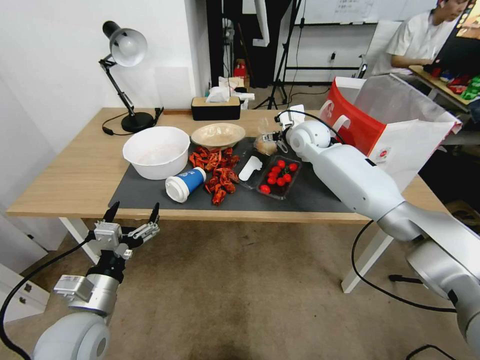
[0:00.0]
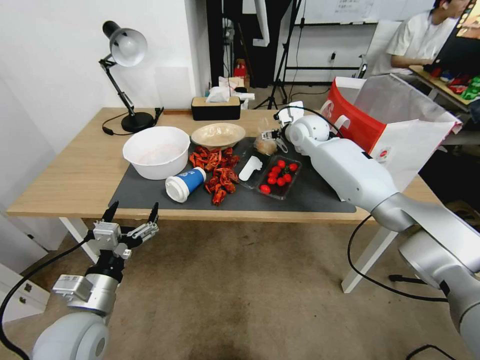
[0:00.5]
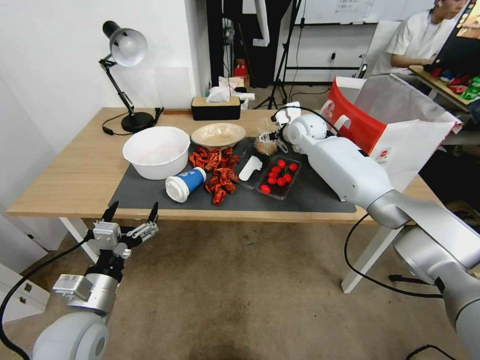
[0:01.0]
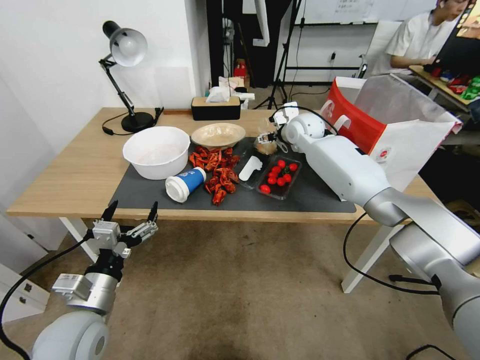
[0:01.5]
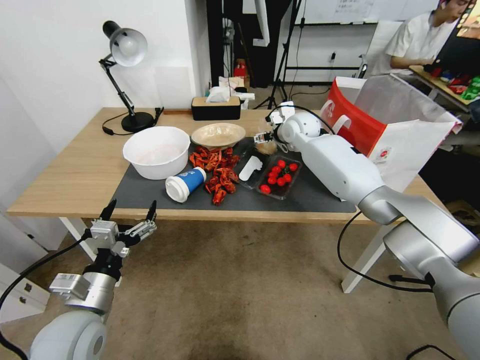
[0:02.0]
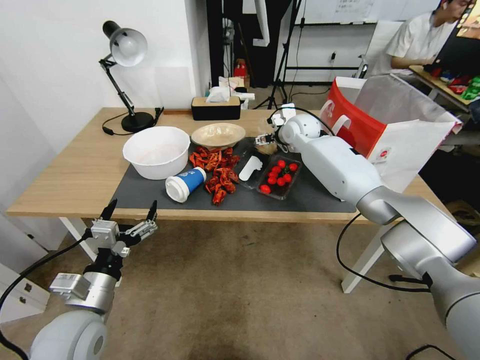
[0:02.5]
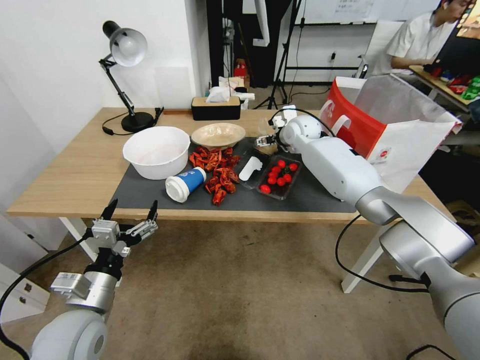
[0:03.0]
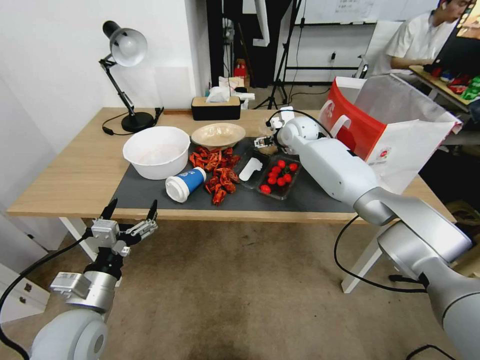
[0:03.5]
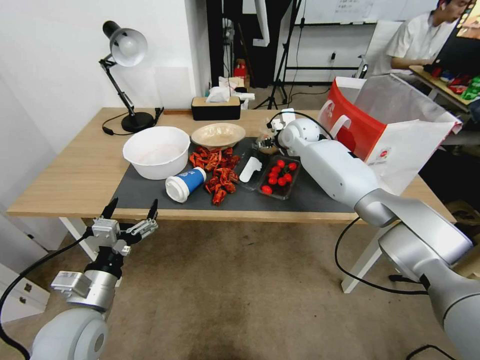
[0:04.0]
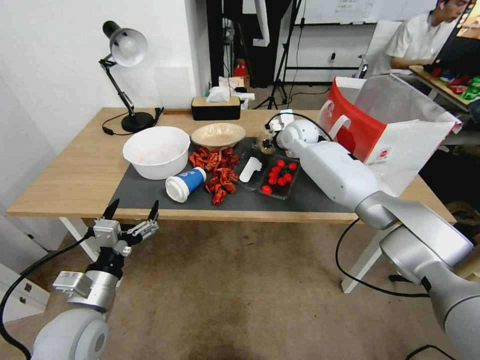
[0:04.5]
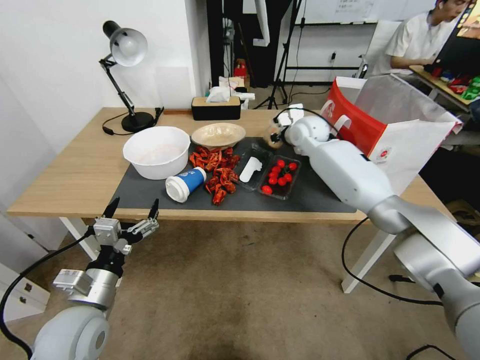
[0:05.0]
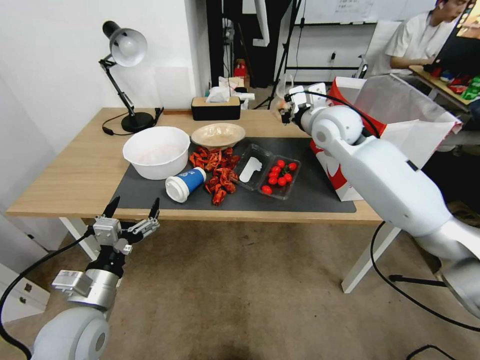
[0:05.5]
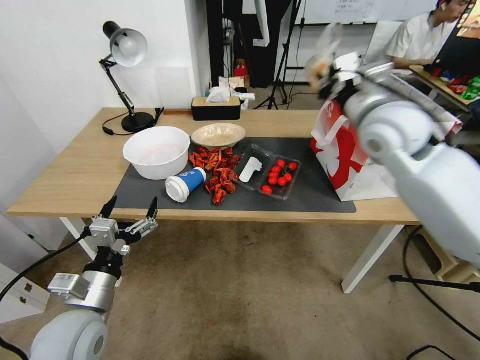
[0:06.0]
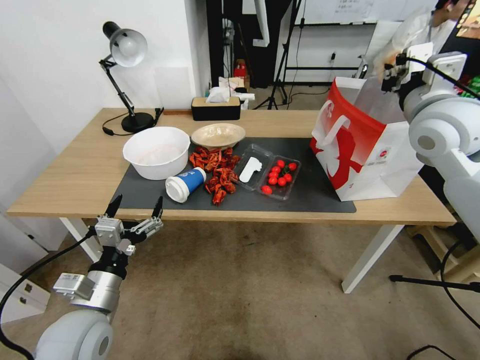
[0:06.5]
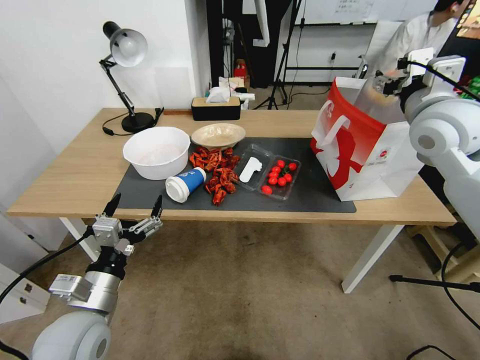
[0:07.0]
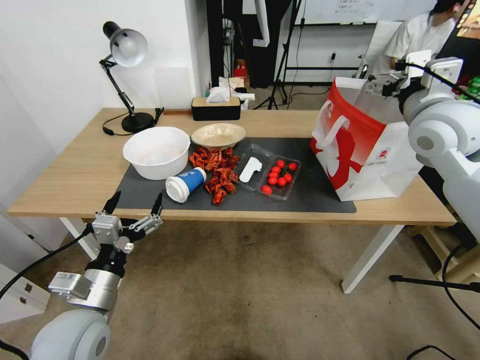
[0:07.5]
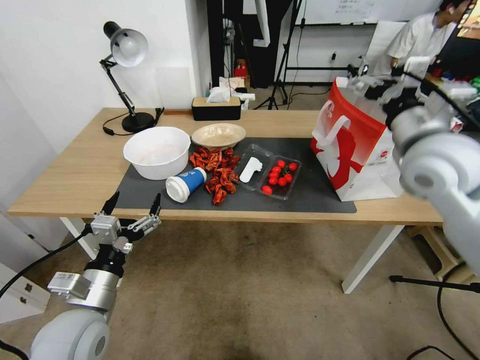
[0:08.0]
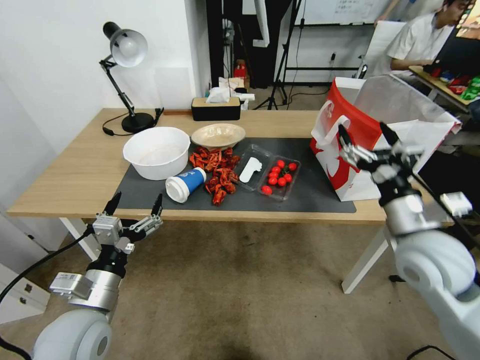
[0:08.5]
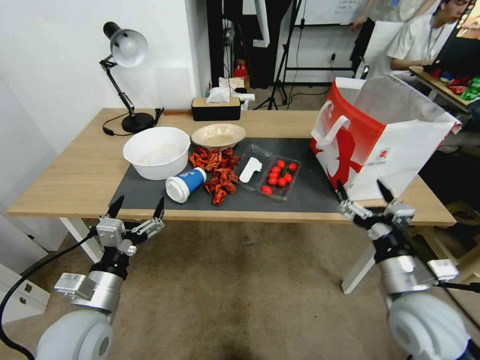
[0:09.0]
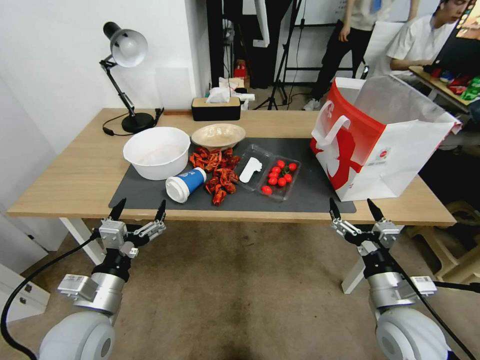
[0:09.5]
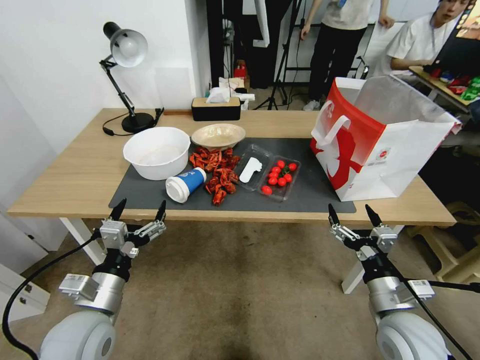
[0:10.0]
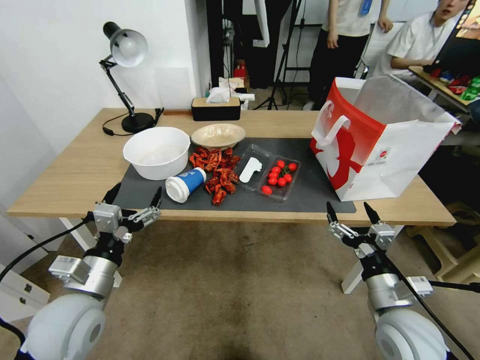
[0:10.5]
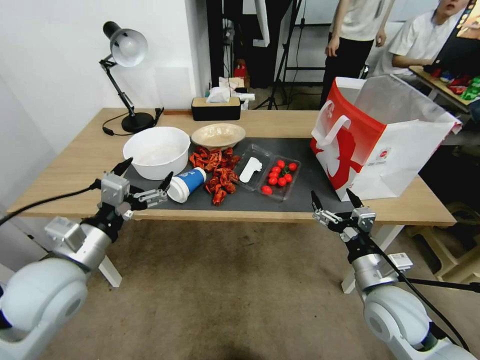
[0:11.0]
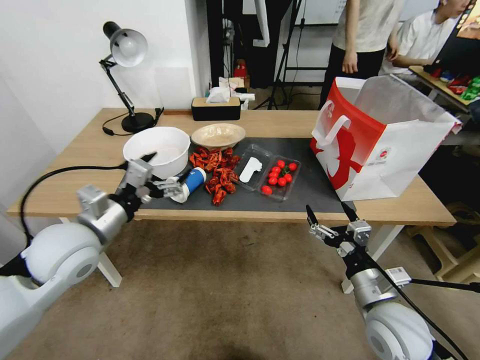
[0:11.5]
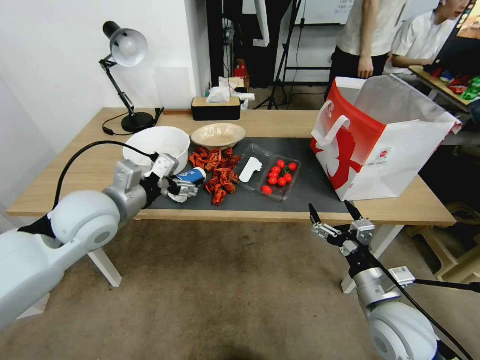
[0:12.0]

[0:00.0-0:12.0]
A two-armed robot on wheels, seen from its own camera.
0:00.0 to 0:02.0: There are only small adjustments of the grippers.
0:02.0 to 0:04.0: The right gripper closes up.
0:04.0 to 0:06.0: The right gripper is displaced backward and upward by about 25 cm, and closes its fingers.
0:06.0 to 0:08.0: The right gripper moves backward, approximately 5 cm, and opens up.
0:08.0 to 0:10.0: The right gripper shifts roughly 30 cm downward and backward.
0:10.0 to 0:12.0: The left gripper heads forward and upward, covering about 20 cm.

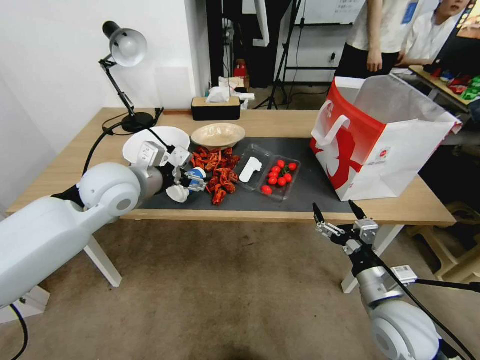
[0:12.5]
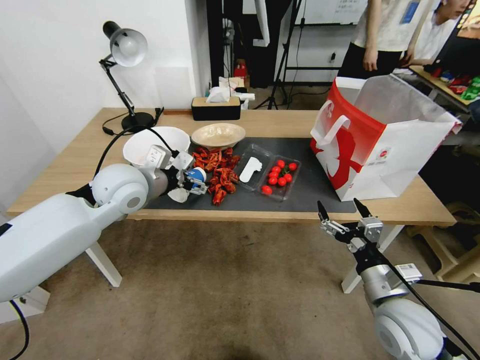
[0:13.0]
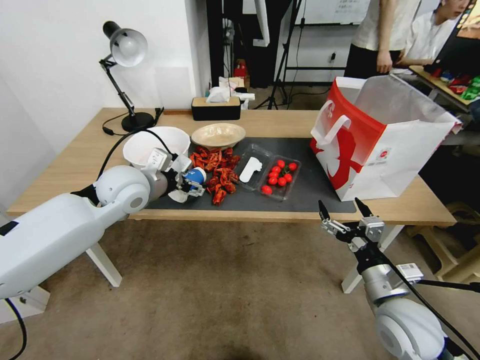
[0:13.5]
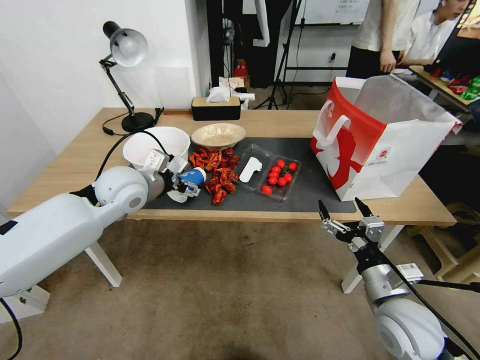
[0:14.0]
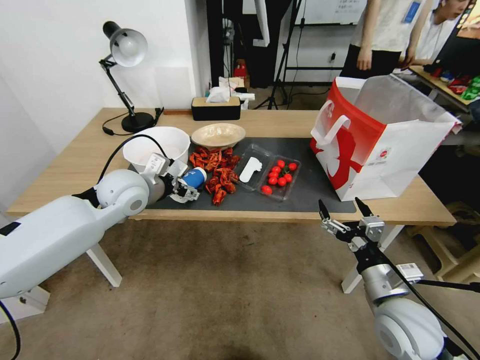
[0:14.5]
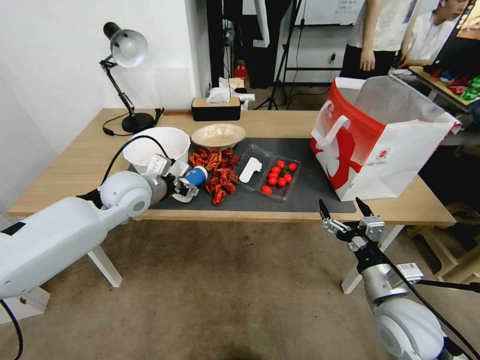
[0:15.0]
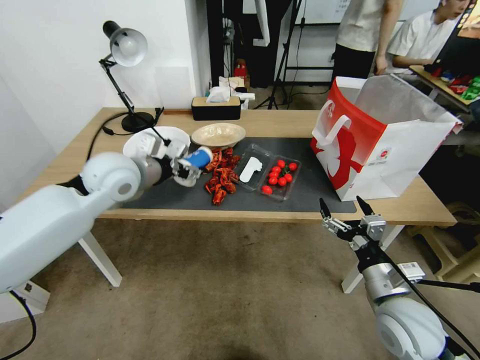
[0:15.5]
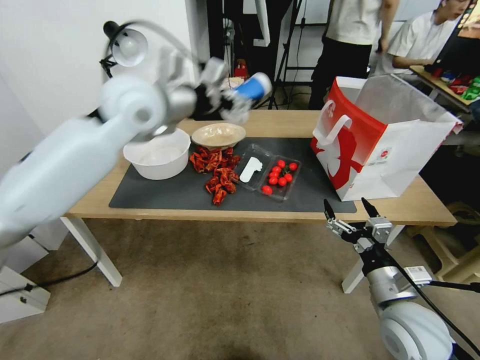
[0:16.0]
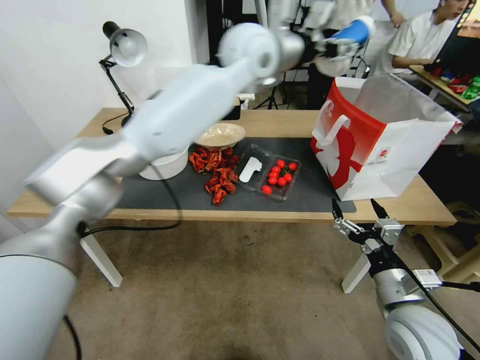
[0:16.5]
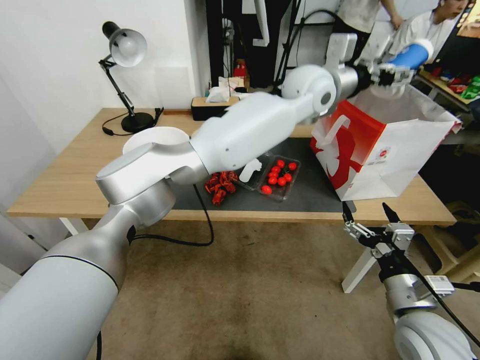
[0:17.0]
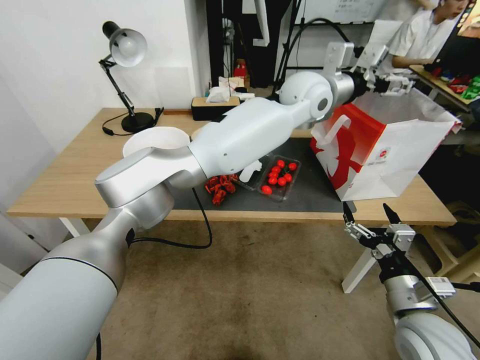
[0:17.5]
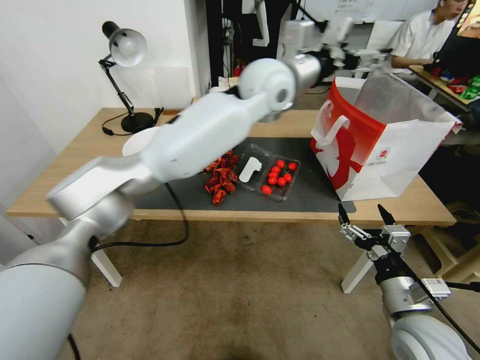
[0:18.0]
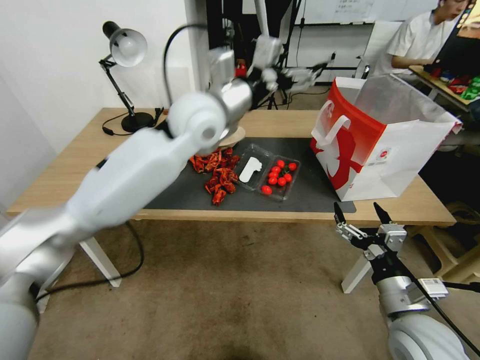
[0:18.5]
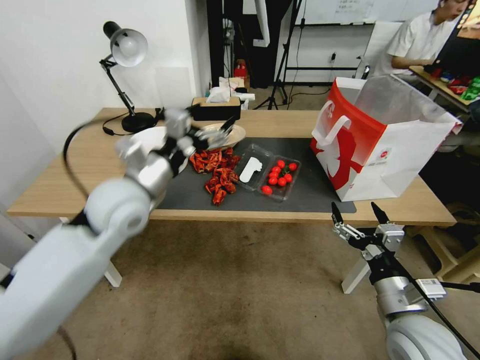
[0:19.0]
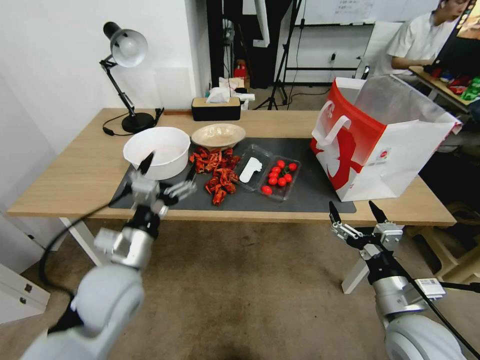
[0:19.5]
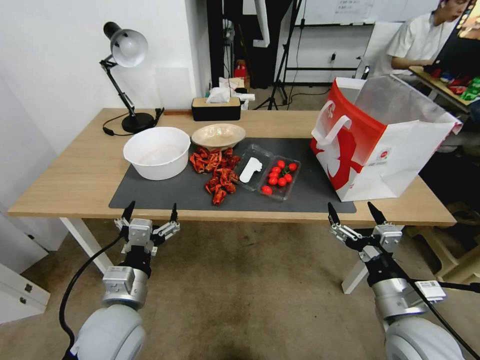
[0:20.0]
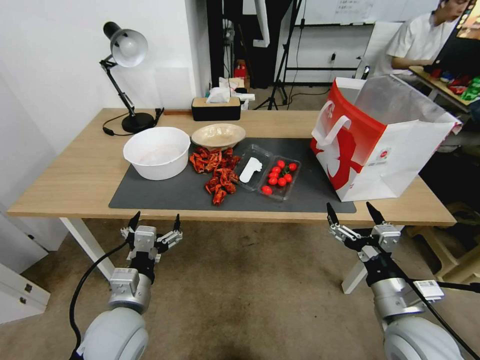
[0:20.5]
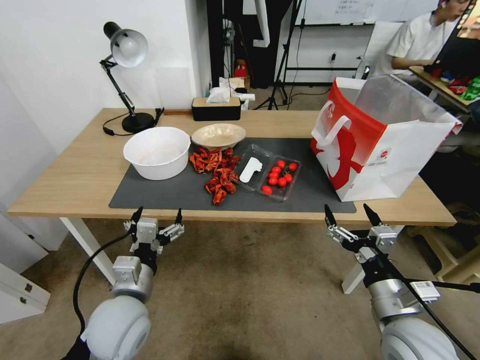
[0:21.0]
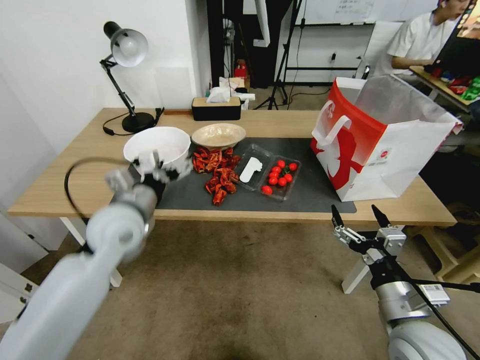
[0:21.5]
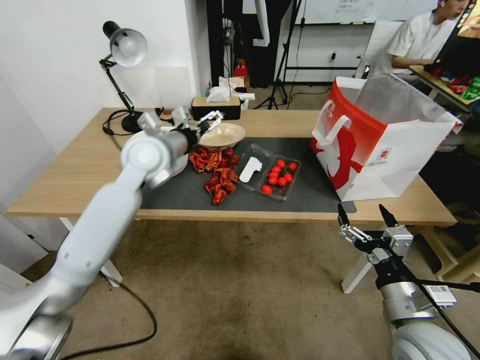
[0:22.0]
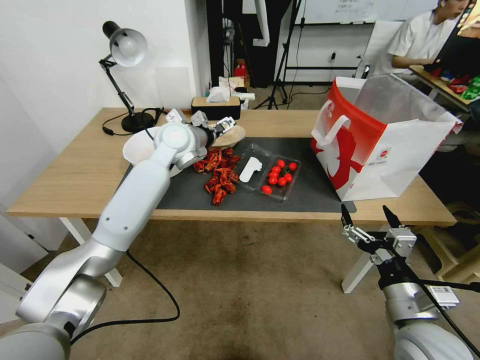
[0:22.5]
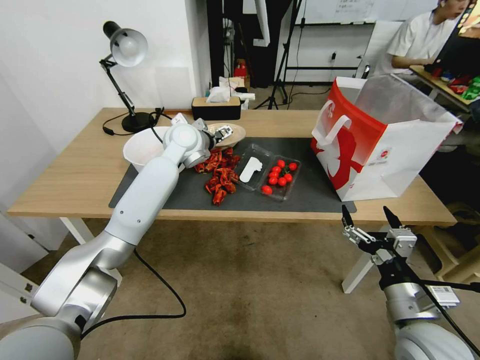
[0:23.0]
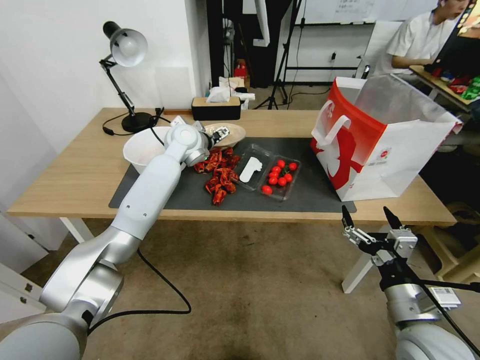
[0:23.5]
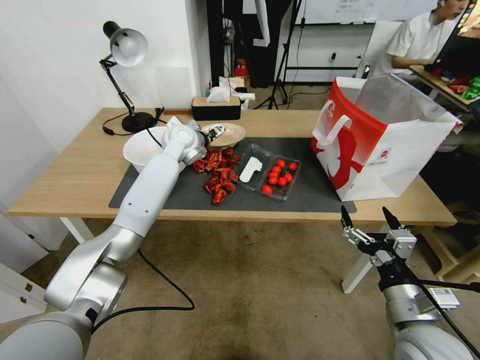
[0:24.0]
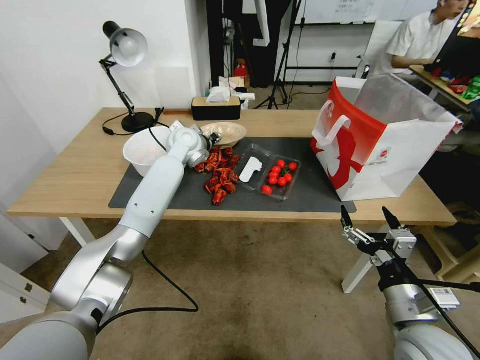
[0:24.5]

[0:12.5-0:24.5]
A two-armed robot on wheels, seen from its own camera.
0:12.5 to 0:14.5: The left gripper moves downward, approximately 5 cm.
0:14.5 to 0:16.5: The left gripper goes about 35 cm to the right, upward and forward.
0:16.5 to 0:18.5: The left gripper travels to the left, downward and backward by roughly 15 cm, and opens its fingers.
0:18.5 to 0:20.5: The left gripper goes about 40 cm downward, backward and to the left.
0:20.5 to 0:22.5: The left gripper is displaced forward and upward by some 40 cm.
0:22.5 to 0:24.5: The left gripper shifts some 10 cm forward and downward, and closes its fingers.

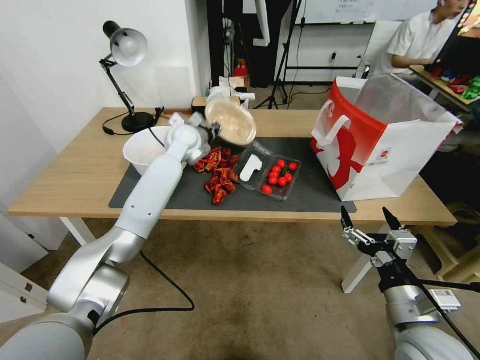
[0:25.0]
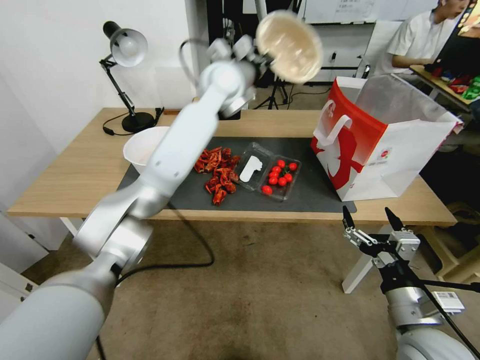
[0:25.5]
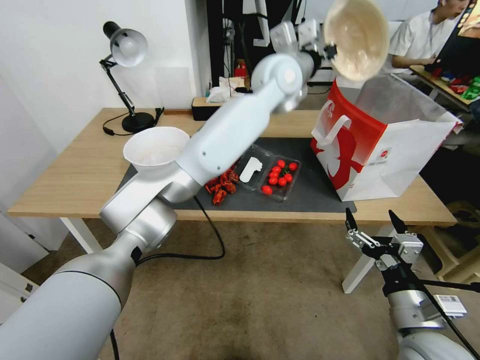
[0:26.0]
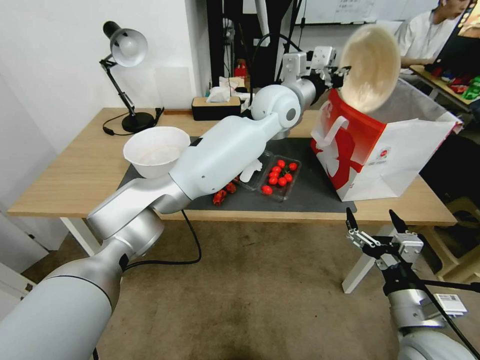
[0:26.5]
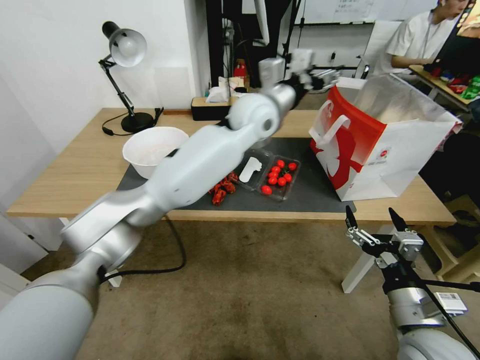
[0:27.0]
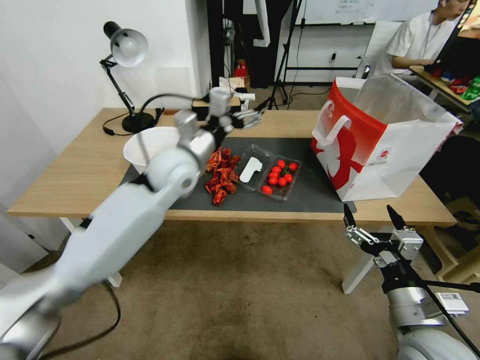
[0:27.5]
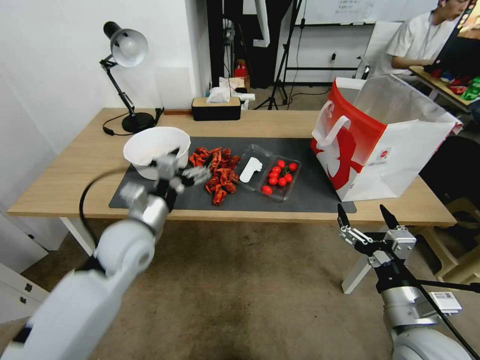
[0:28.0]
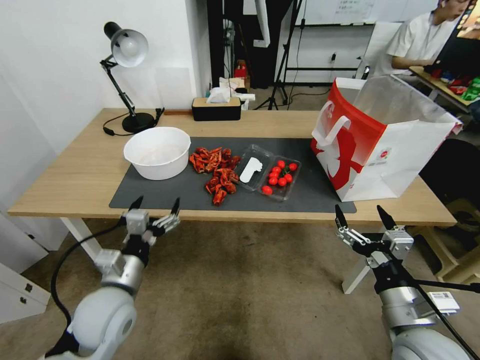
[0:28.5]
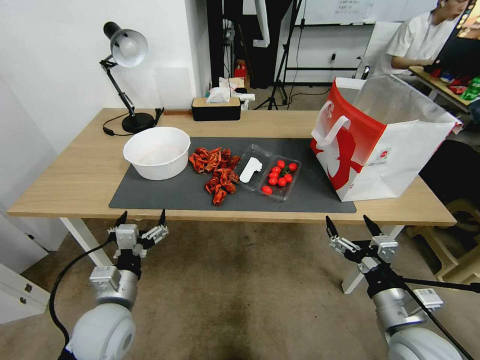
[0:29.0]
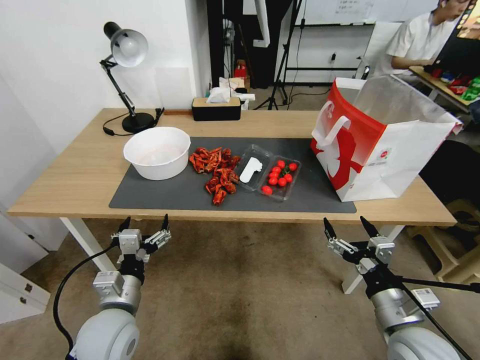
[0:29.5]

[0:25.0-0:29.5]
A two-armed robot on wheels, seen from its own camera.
0:25.0 to 0:27.0: The left gripper moves to the right and upward, some 20 cm, and opens.
0:27.0 to 0:29.5: The left gripper is displaced backward, downward and to the left by some 50 cm.
